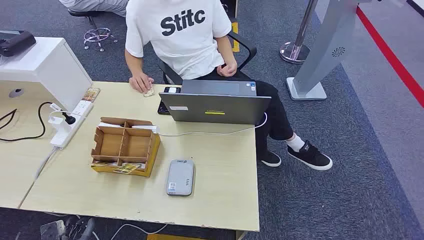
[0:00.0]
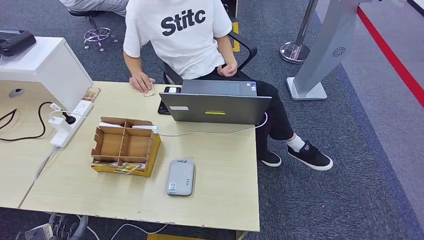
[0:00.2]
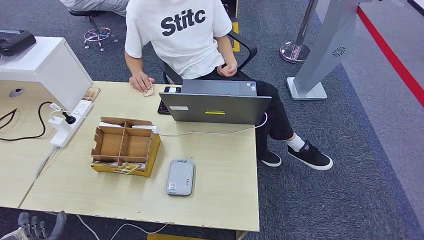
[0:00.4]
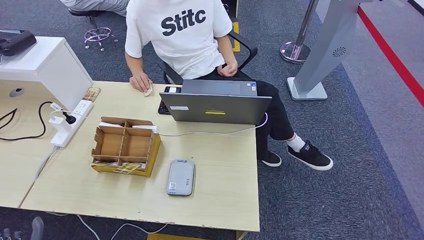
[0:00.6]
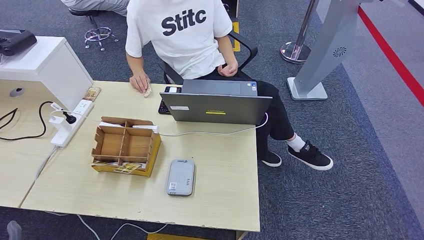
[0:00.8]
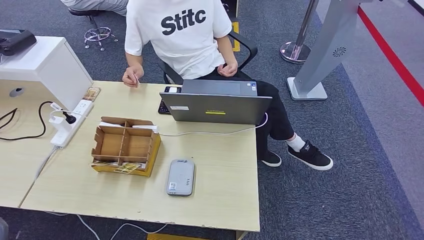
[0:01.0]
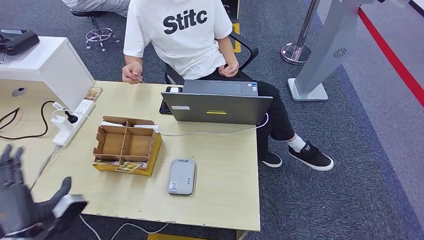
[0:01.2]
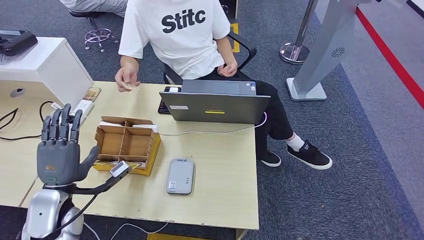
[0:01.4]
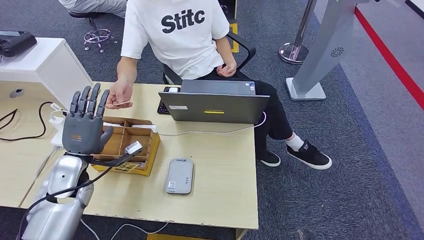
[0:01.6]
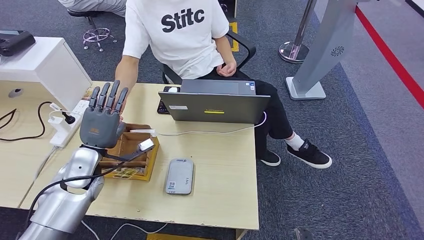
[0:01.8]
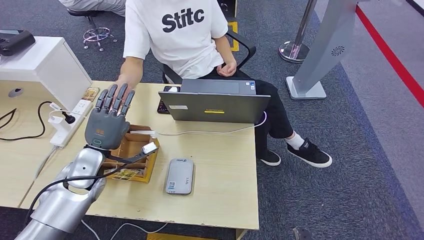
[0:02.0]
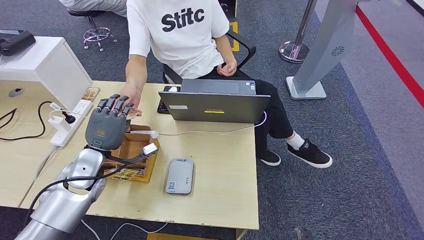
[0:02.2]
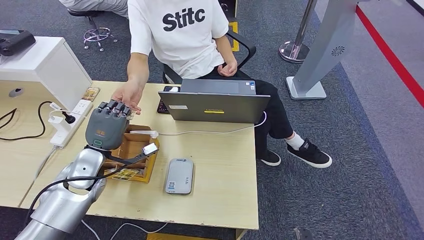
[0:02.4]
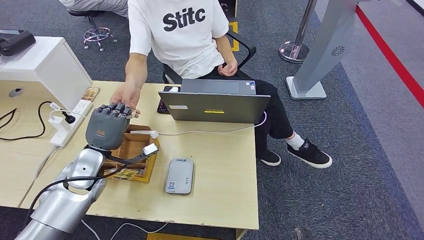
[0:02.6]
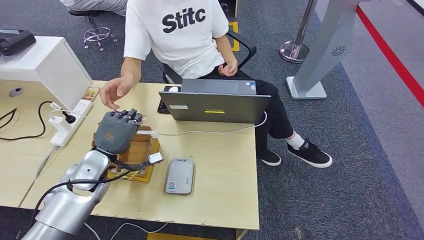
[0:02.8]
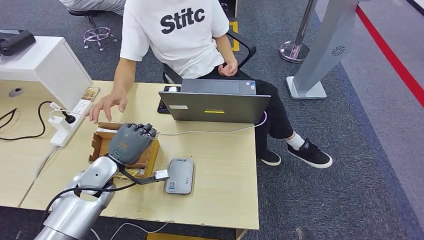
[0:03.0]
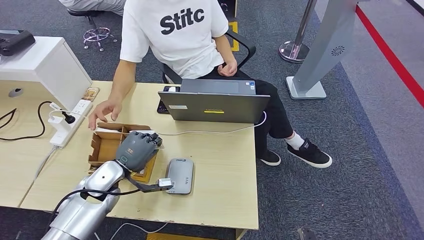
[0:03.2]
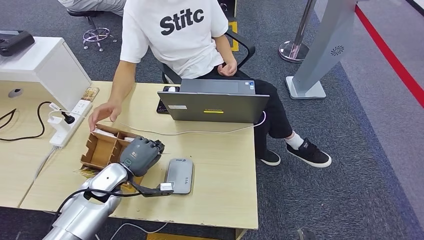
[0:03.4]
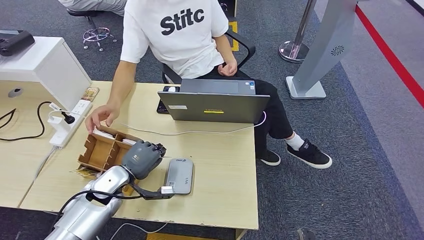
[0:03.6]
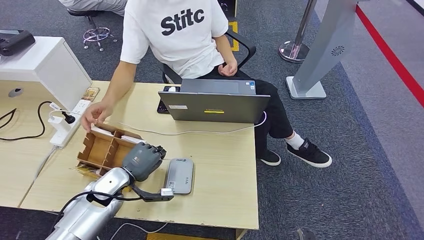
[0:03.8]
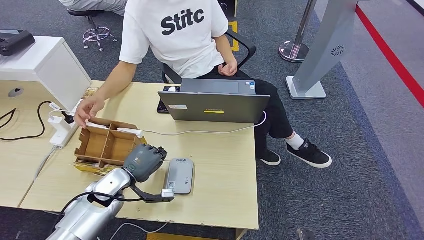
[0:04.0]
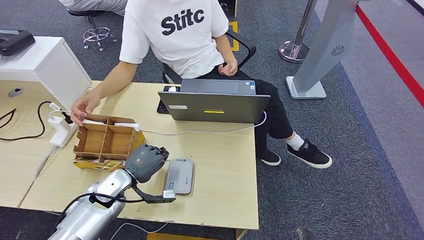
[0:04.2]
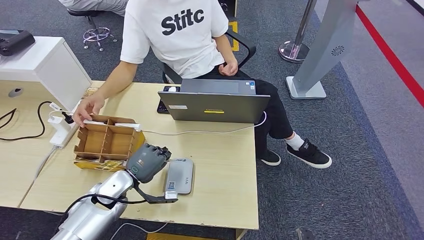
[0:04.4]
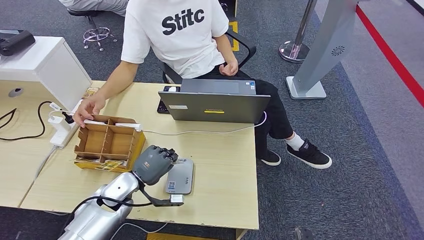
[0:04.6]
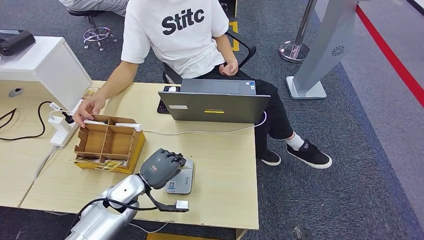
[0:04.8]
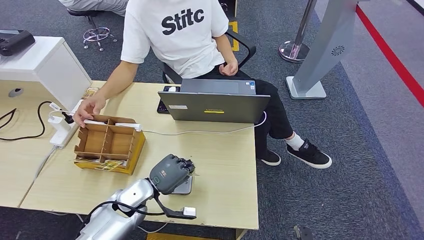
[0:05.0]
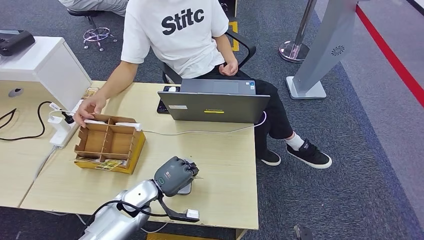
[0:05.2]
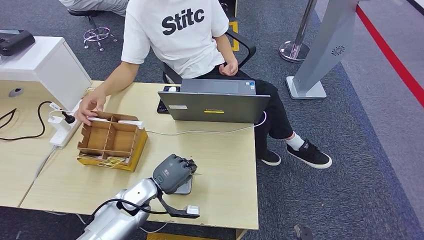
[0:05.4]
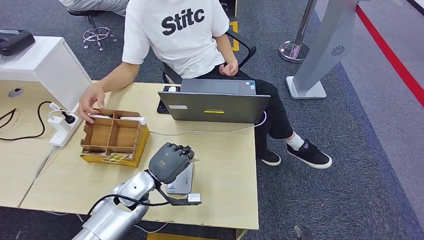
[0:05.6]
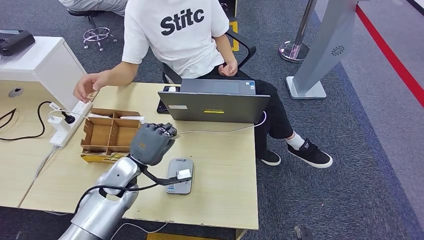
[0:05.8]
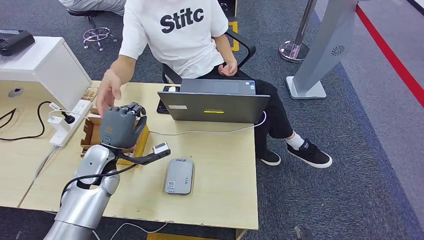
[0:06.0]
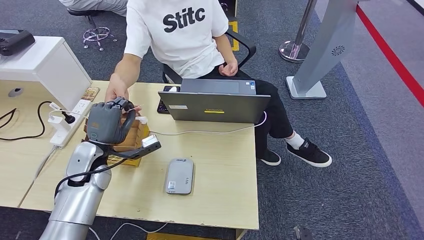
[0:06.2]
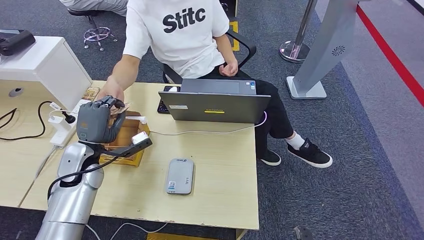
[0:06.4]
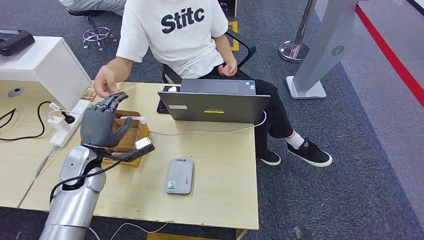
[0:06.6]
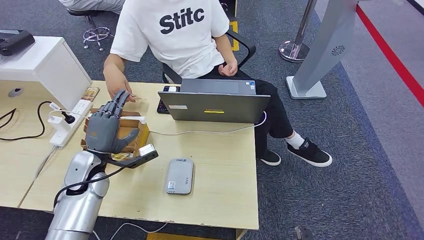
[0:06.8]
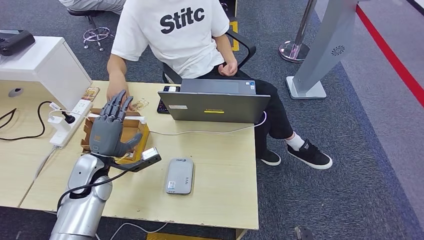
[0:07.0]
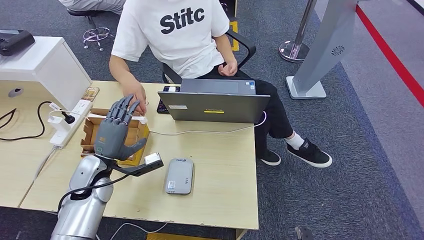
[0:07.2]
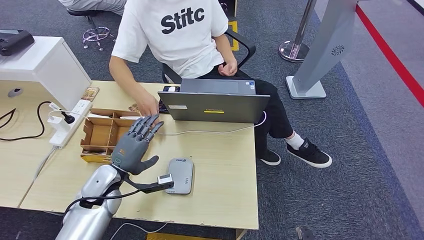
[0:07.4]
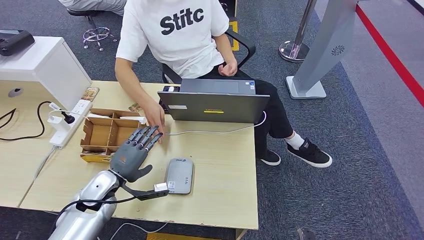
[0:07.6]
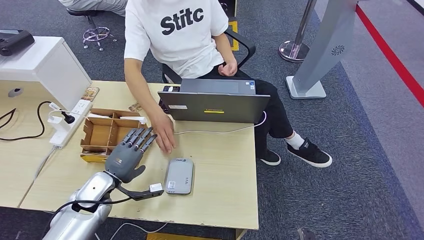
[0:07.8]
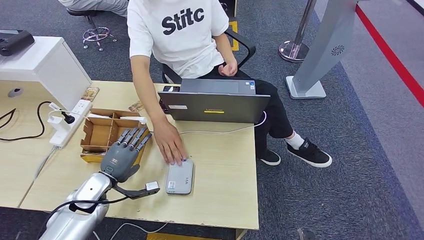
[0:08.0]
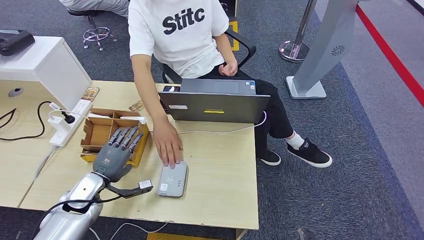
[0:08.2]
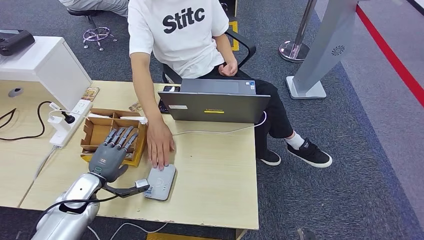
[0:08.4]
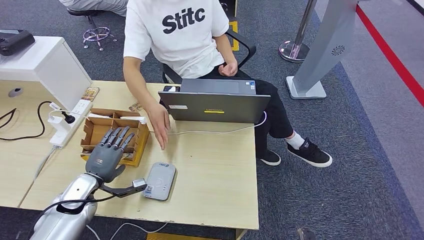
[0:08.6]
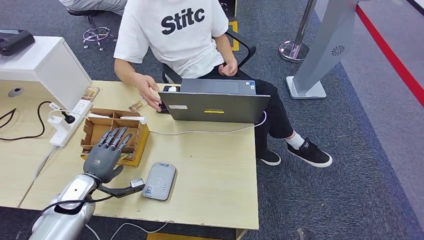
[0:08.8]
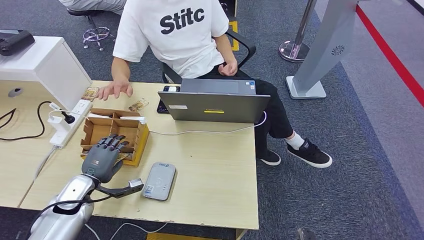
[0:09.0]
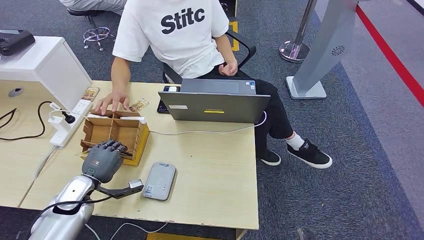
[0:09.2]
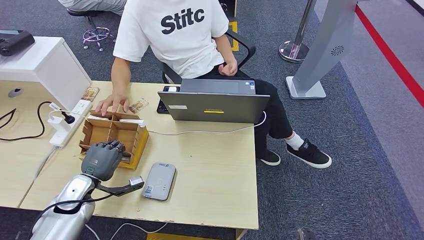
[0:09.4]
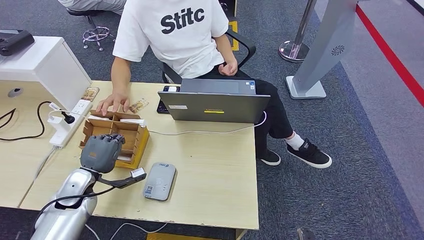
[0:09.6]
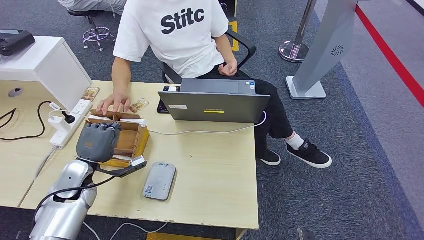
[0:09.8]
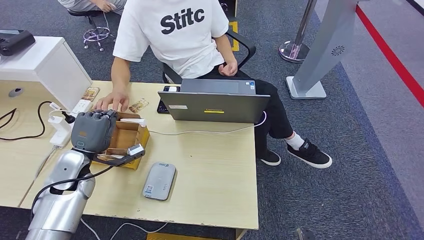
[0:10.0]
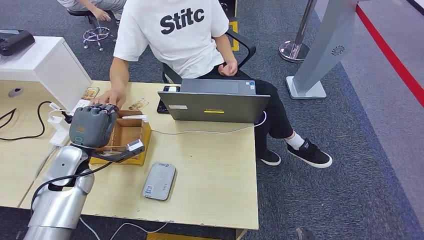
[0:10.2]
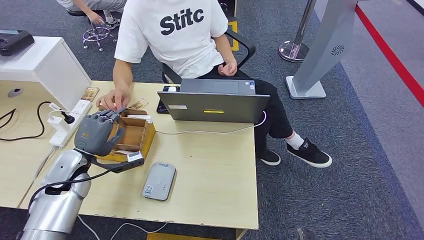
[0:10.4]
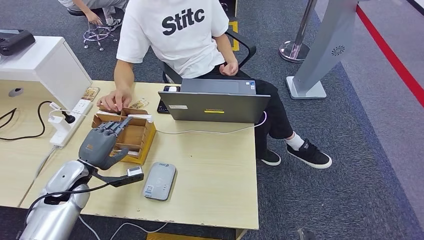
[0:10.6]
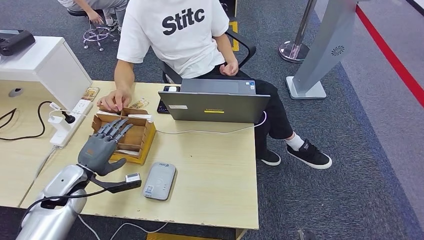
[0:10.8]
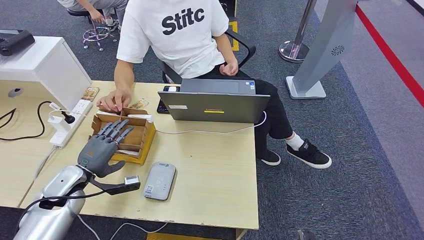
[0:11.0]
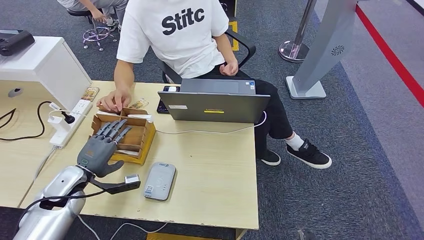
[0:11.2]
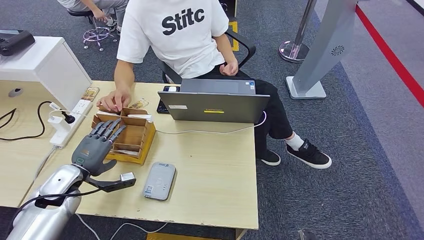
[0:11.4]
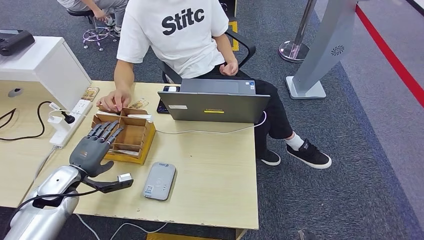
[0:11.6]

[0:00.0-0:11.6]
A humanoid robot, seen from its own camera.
Step, 0:00.0 to 0:03.4: Take the ID card from the person's hand.
Step, 0:03.6 to 0:05.2: Place the ID card on the card reader.
Step, 0:05.4 to 0:07.6: Hand the ID card to the person.
0:01.4 to 0:02.8: The left hand heads forward, covering some 10 cm.
0:02.8 to 0:04.4: The left hand is displaced downward by approximately 10 cm.
0:04.4 to 0:05.8: The left hand shifts approximately 5 cm upward.
0:05.8 to 0:07.2: The left hand moves to the left, approximately 5 cm.
0:07.2 to 0:08.8: The left hand goes approximately 10 cm to the left and downward.
0:08.8 to 0:10.2: The left hand goes about 10 cm upward.
0:10.2 to 0:11.6: The left hand goes about 5 cm downward and to the left.

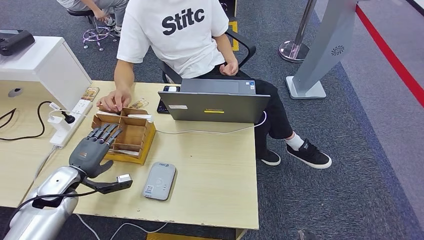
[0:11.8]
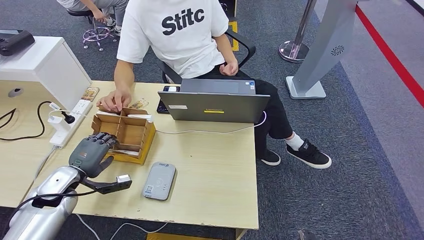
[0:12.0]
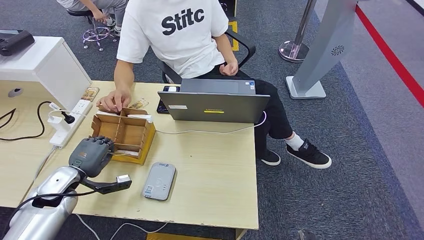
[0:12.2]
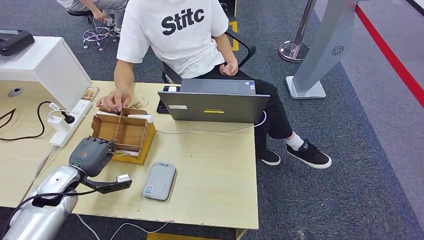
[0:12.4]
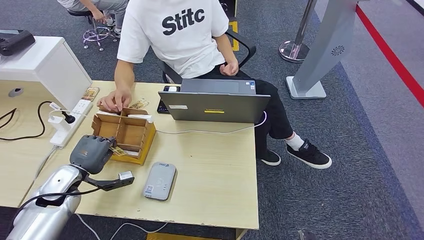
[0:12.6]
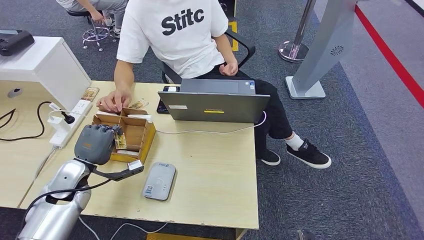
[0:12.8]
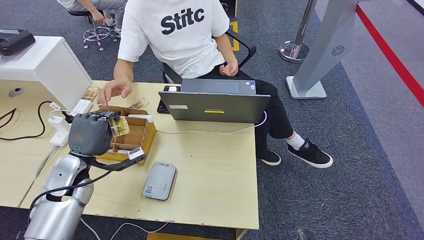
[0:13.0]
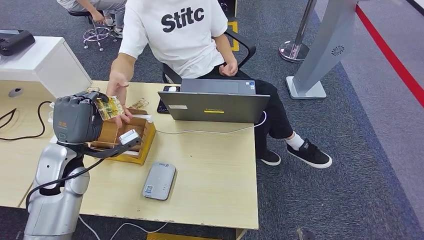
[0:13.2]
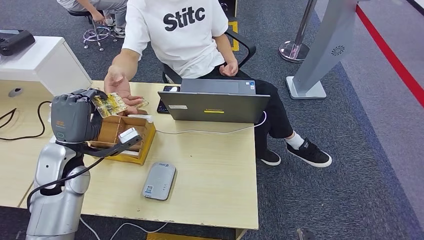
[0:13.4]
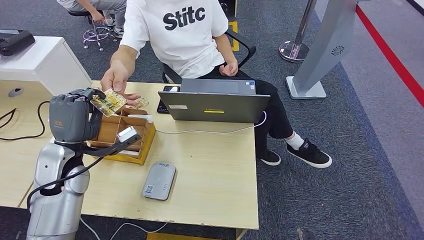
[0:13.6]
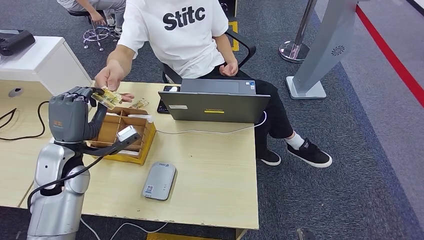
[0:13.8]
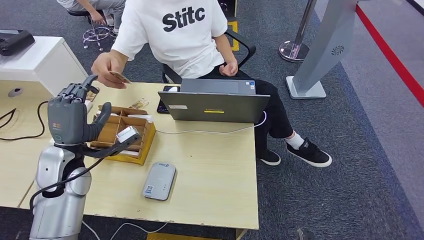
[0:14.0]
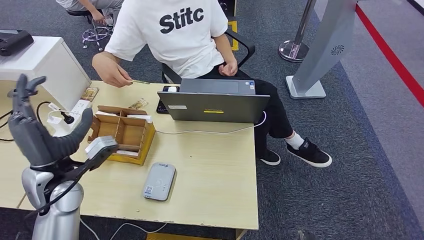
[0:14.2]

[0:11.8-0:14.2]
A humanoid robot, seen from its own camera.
Step, 0:12.6 to 0:14.2: Hand the room key to the person.
0:11.8 to 0:13.0: The left hand travels to the right and upward by about 10 cm.
0:13.0 to 0:14.2: The left hand travels upward by some 5 cm.

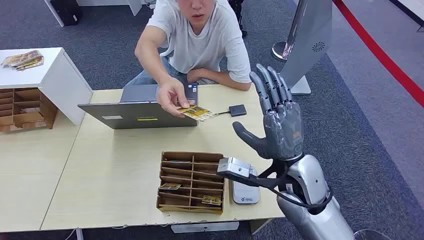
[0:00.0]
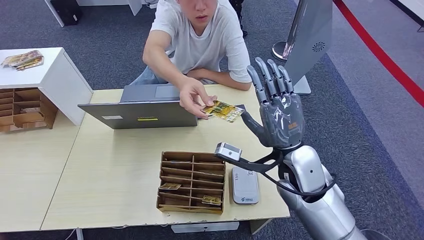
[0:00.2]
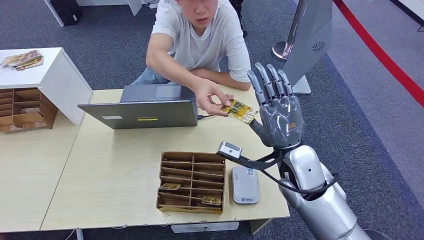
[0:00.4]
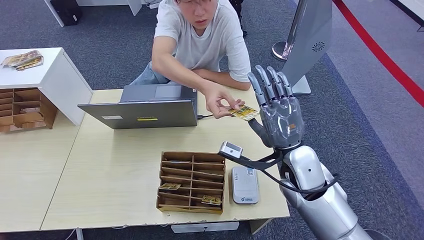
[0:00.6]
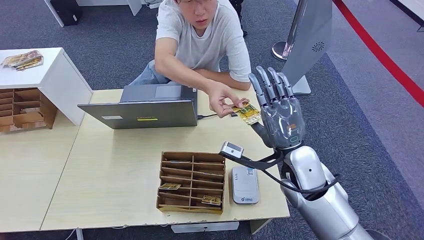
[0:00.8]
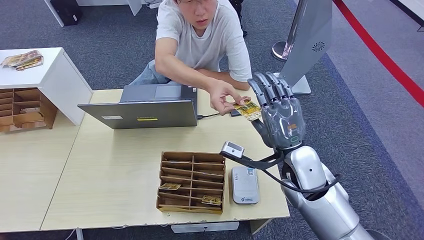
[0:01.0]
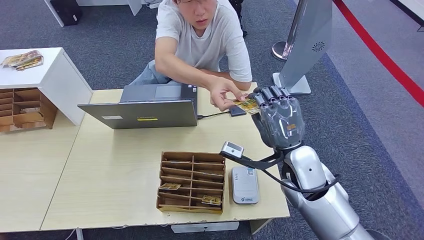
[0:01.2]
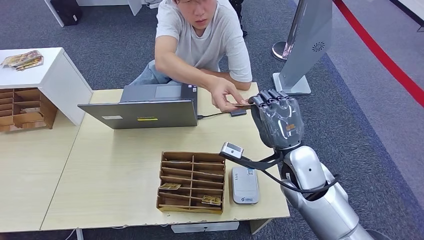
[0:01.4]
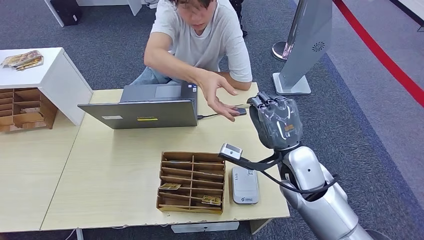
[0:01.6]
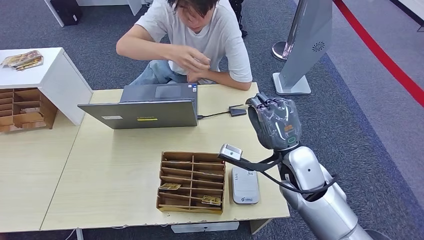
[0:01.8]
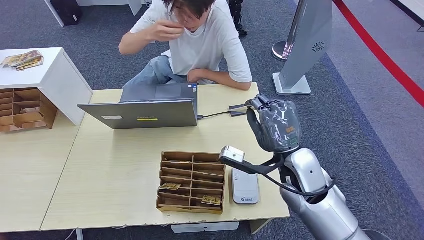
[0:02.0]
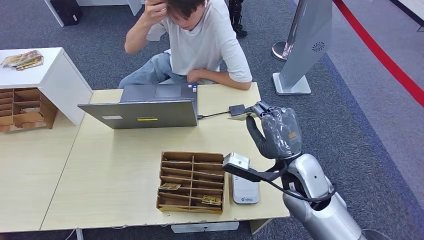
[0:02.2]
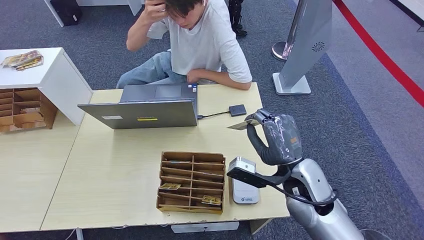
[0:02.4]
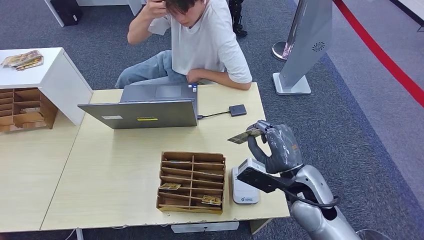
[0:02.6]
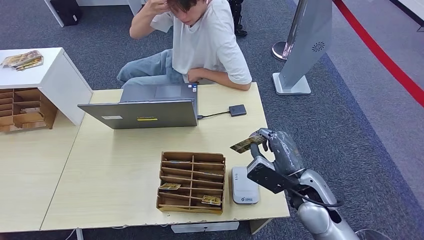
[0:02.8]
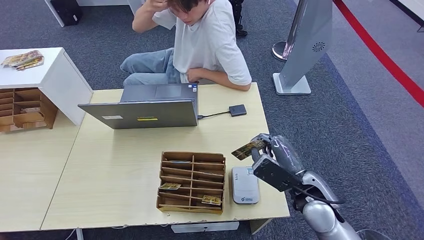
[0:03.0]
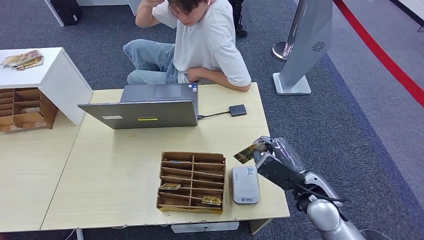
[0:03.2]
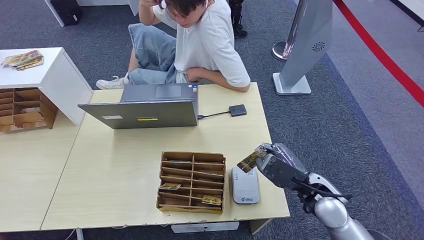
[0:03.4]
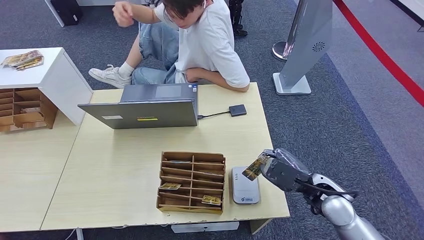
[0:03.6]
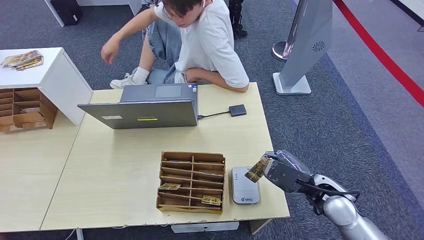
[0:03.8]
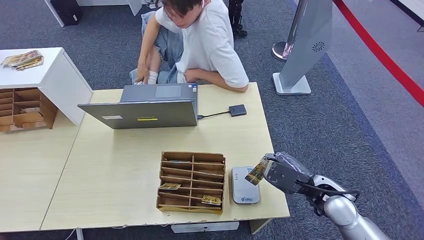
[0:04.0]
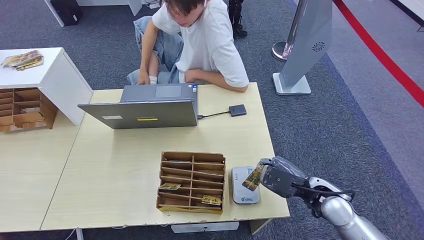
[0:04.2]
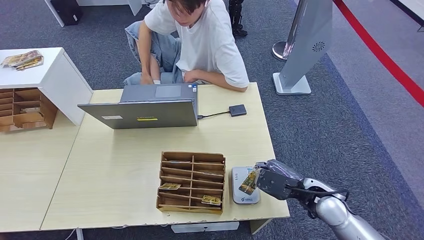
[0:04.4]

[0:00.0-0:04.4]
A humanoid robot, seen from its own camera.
Step, 0:00.0 to 0:03.0: Take the ID card from the person's hand.
0:01.4 to 0:03.0: The right hand heads downward, covering roughly 5 cm.
0:03.0 to 0:04.4: The right hand is displaced to the right by about 5 cm.
